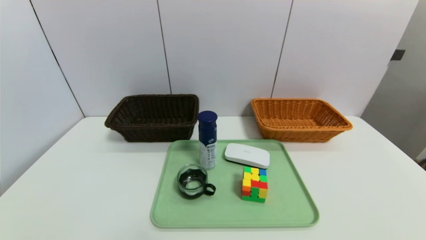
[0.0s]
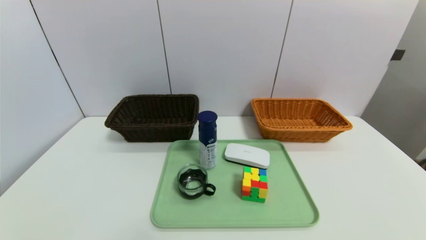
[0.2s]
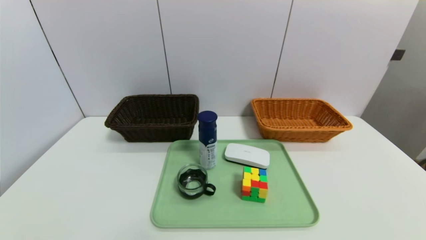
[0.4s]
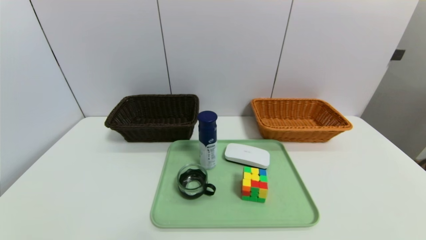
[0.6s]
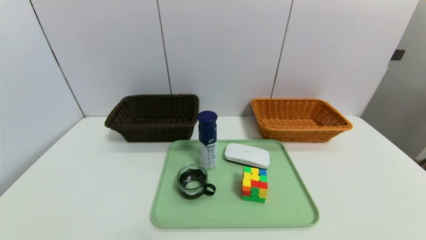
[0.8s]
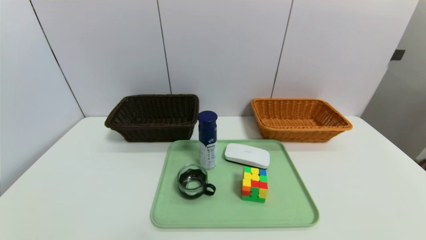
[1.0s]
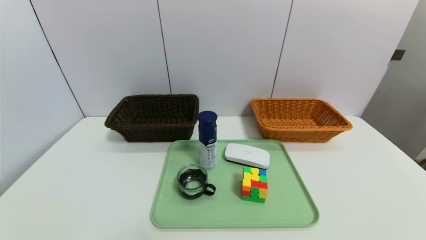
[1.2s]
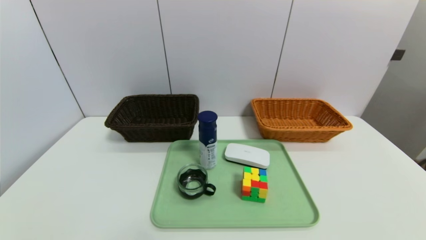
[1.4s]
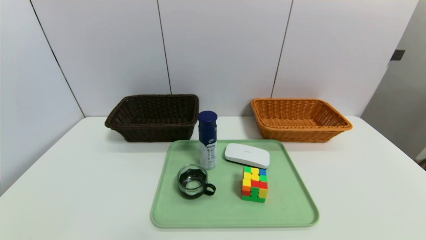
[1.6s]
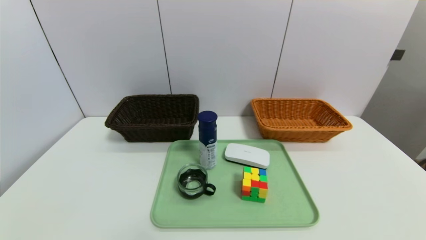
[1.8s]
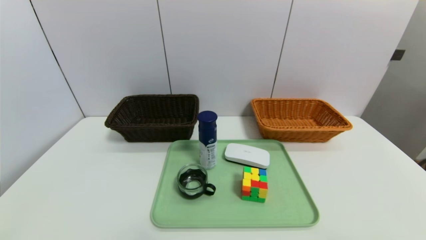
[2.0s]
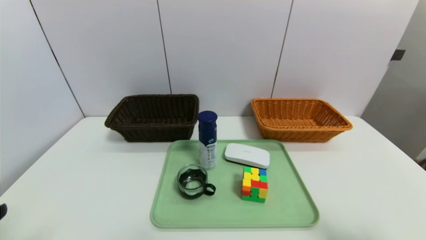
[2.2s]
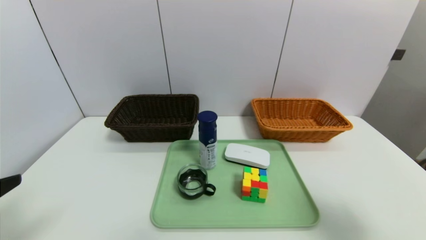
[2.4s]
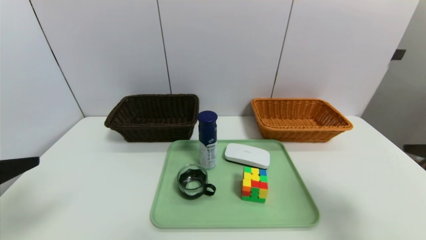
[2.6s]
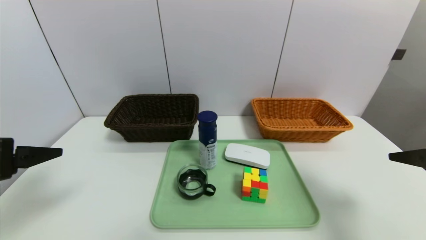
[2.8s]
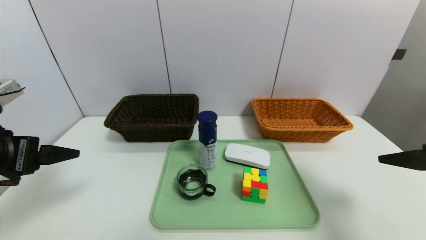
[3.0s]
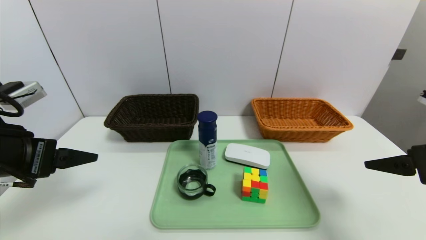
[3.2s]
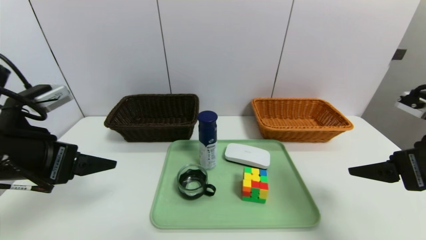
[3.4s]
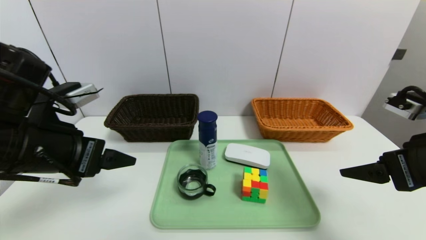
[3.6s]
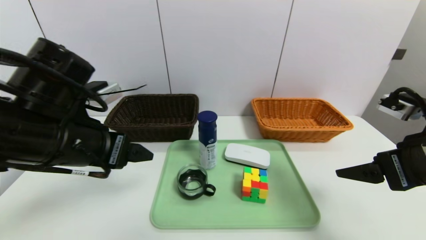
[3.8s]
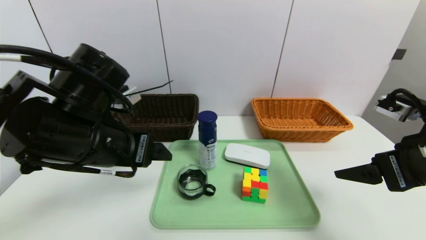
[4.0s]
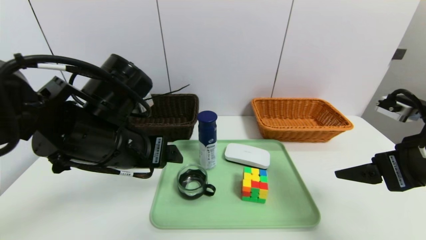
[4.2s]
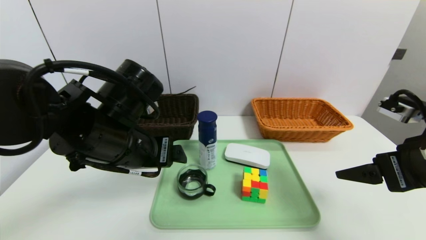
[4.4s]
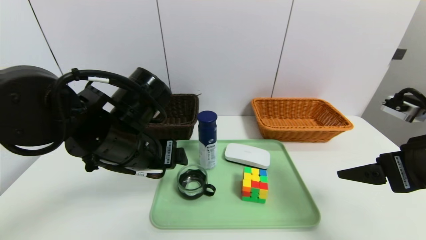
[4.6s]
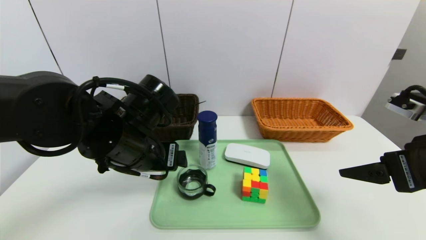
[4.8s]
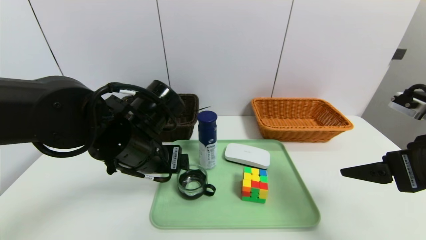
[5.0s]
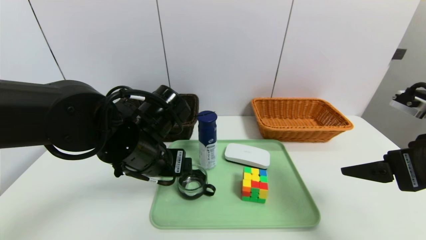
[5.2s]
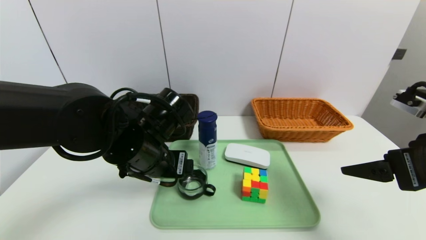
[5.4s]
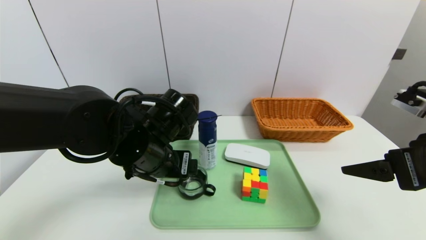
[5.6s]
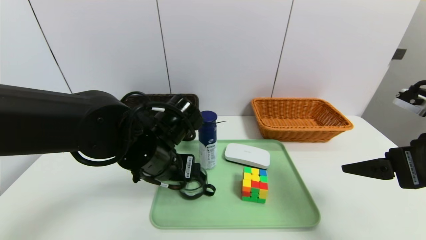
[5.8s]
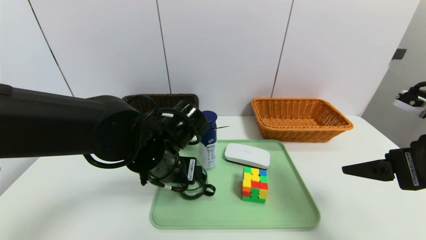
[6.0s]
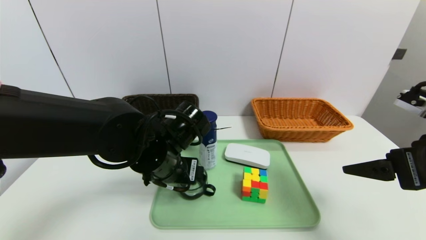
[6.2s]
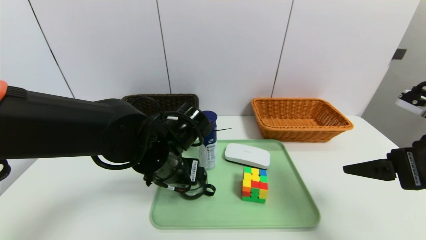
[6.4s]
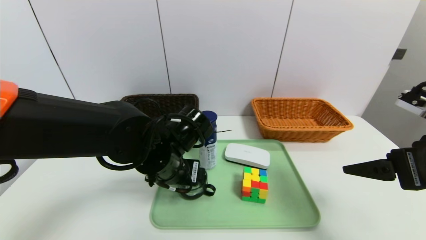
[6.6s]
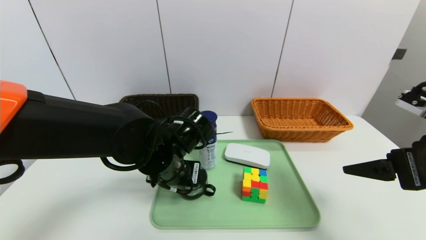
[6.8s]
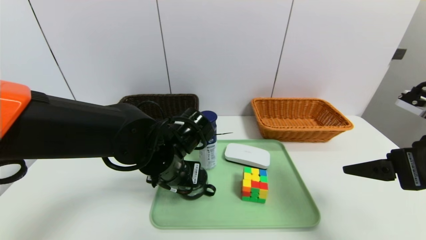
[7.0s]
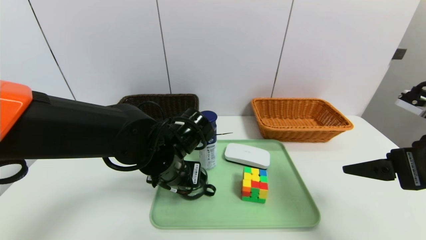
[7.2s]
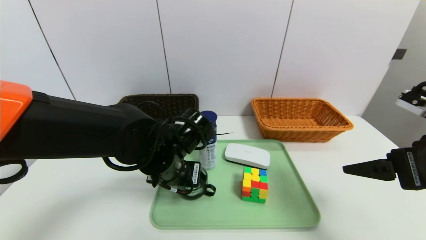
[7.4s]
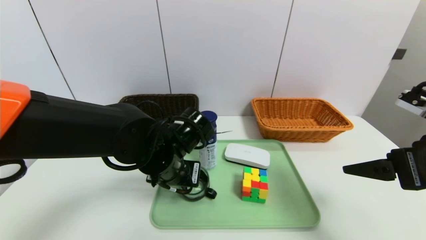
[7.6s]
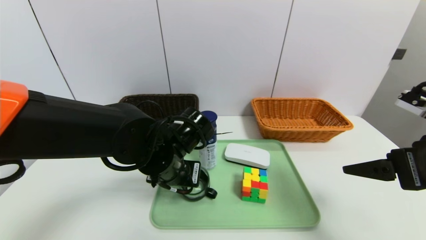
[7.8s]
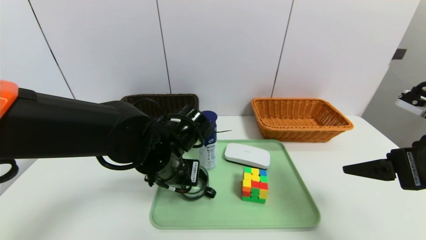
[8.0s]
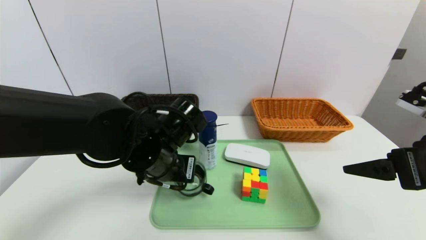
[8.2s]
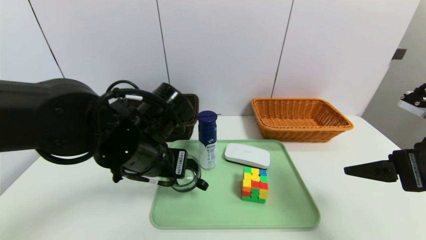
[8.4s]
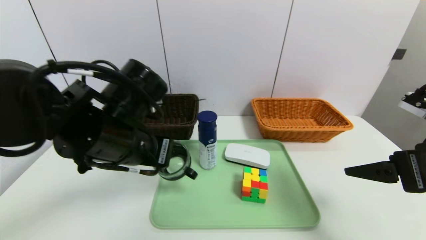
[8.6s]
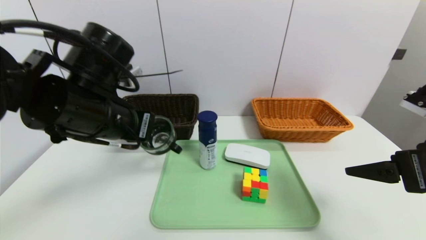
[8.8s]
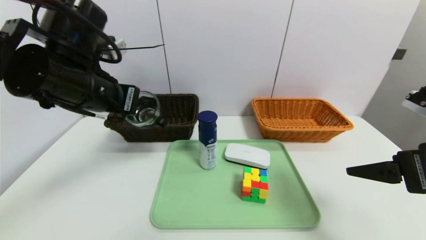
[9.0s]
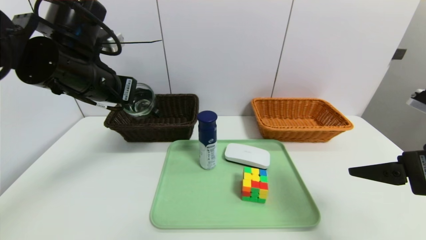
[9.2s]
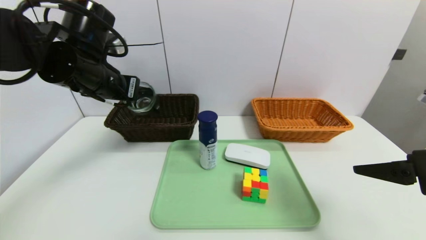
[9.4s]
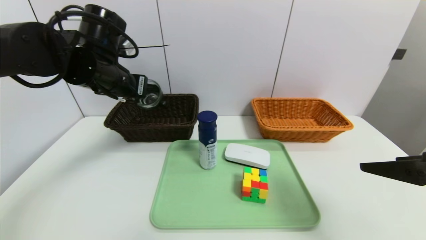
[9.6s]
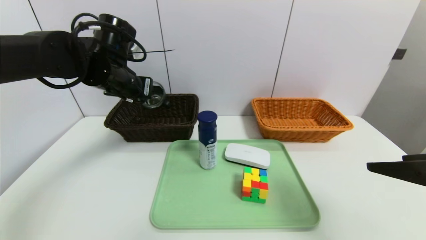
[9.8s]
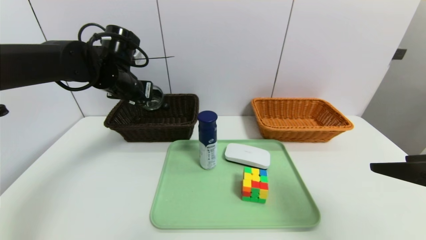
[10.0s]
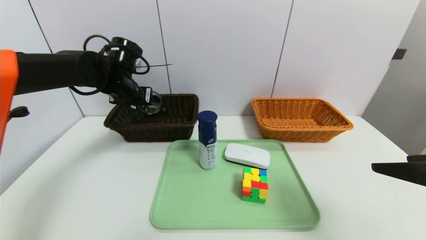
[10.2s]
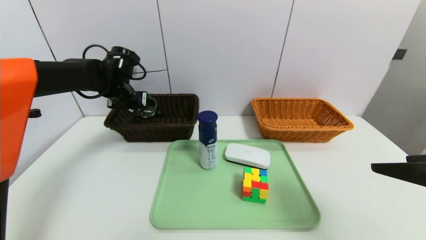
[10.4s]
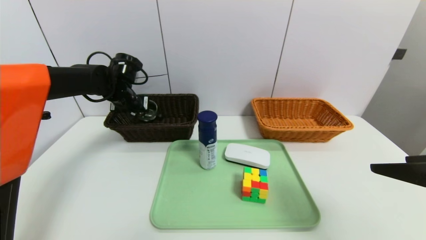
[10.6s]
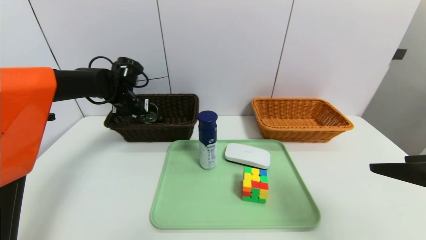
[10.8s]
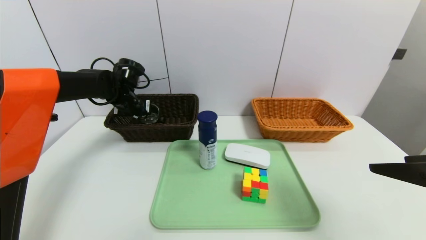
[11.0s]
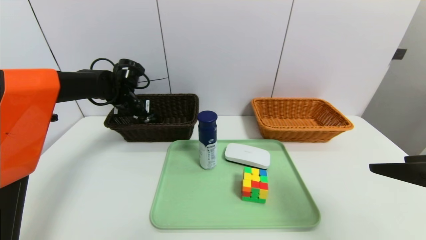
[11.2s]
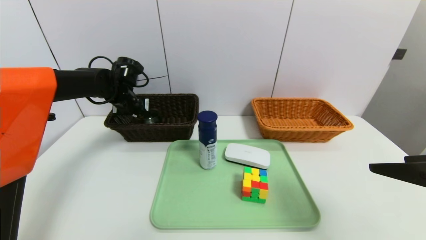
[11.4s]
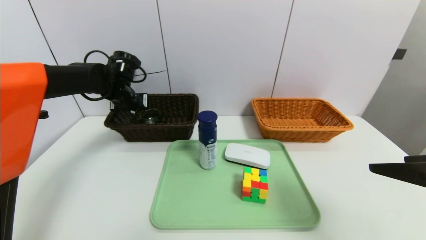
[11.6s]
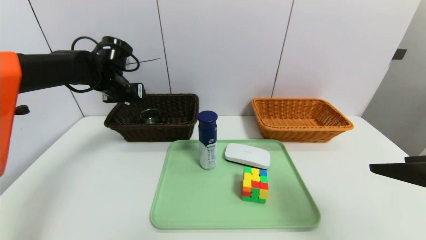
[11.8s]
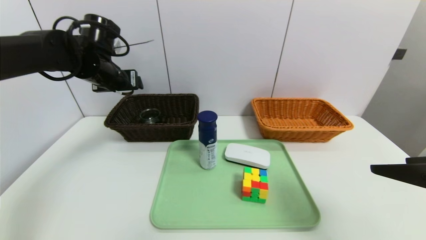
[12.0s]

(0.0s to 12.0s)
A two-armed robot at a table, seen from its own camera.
Task of the whole recording: place the food in the right basket with the right gripper, and place the non food items in the left basket with the left gripper.
Step, 0.0s - 11.6s: Grasp the tea cup and put it in the left basket.
1.6s - 3.0s: Both grippers move forward and upward, some 25 cm.
3.0s - 4.4s: The left gripper shifts roughly 15 cm to the right.
4.4s - 6.0s: The left gripper travels downward by roughly 5 cm.
6.0s - 7.6s: The left gripper closes its fingers.
7.6s - 9.0s: The left gripper is displaced upward and to the left by roughly 20 cm.
9.0s - 10.4s: The left gripper moves forward and downward, about 20 cm.
10.4s - 12.0s: The left gripper goes roughly 5 cm upward, and opens its fingers.

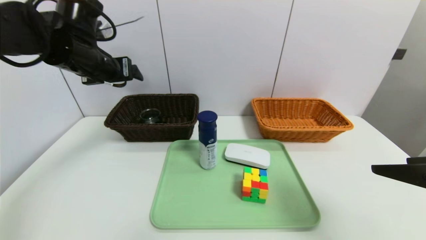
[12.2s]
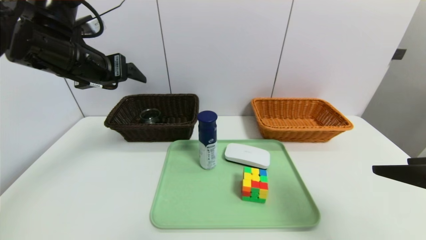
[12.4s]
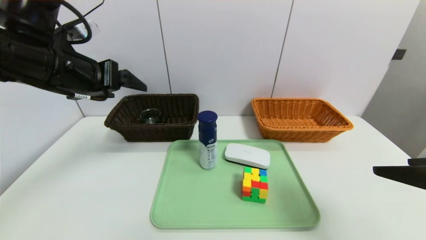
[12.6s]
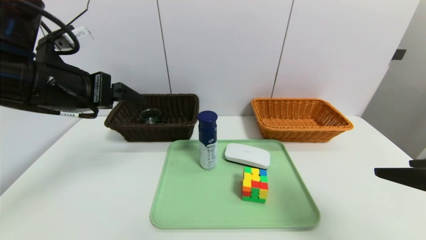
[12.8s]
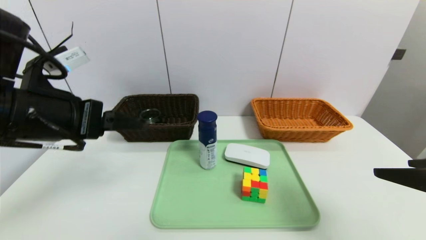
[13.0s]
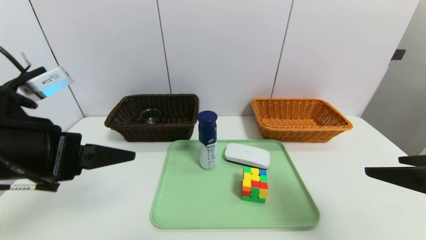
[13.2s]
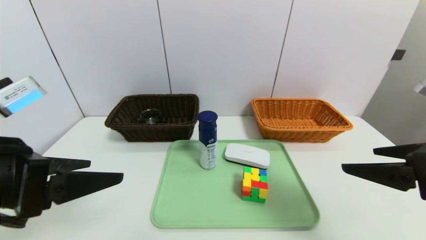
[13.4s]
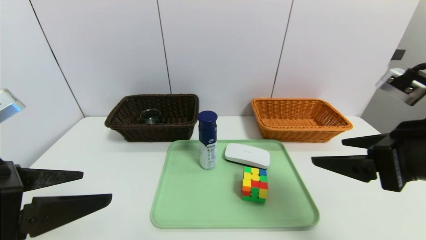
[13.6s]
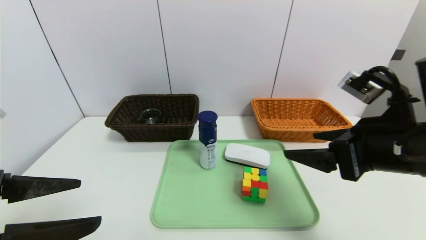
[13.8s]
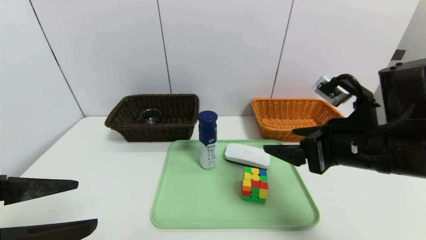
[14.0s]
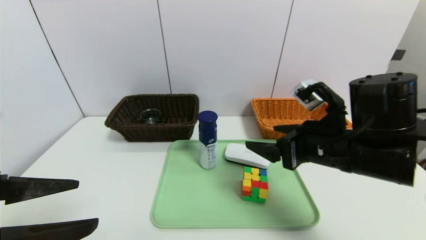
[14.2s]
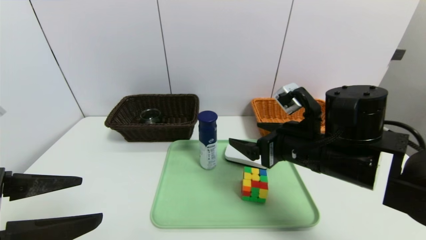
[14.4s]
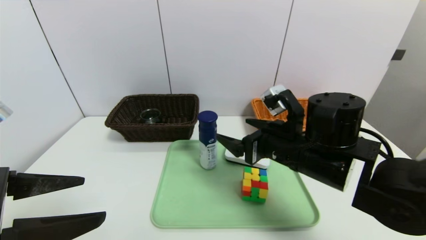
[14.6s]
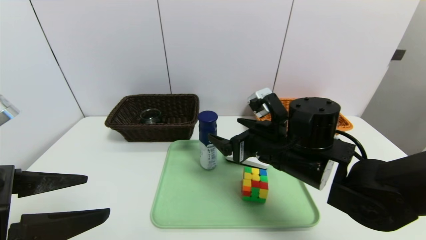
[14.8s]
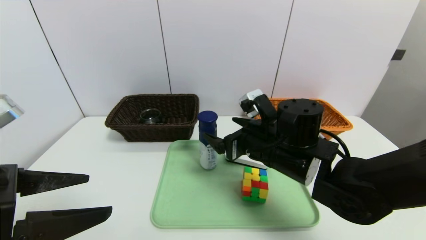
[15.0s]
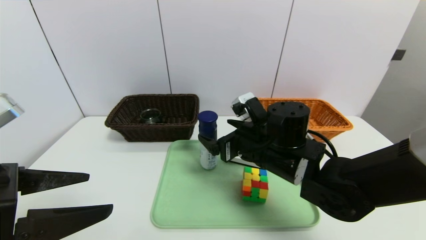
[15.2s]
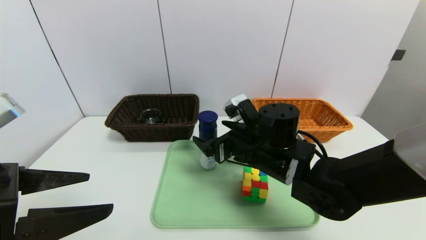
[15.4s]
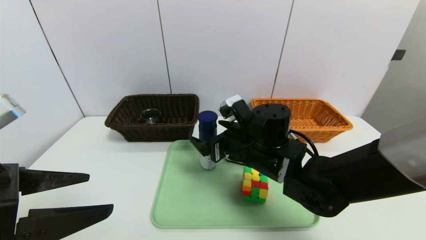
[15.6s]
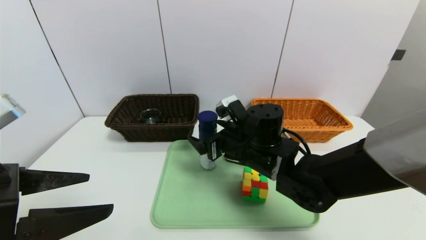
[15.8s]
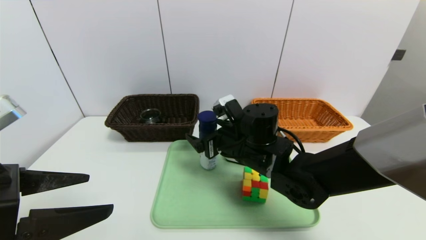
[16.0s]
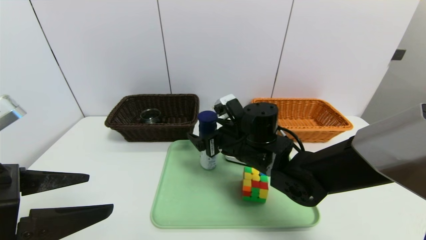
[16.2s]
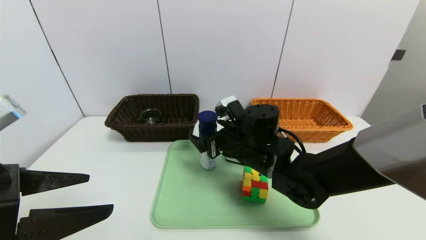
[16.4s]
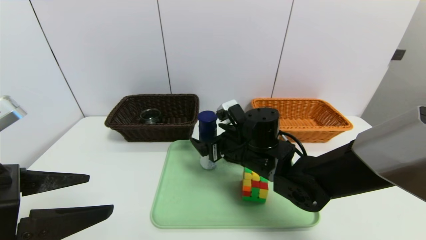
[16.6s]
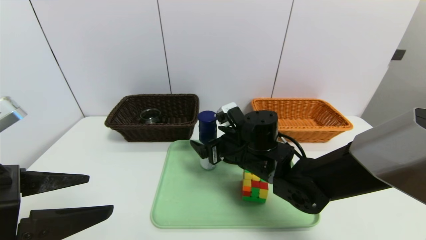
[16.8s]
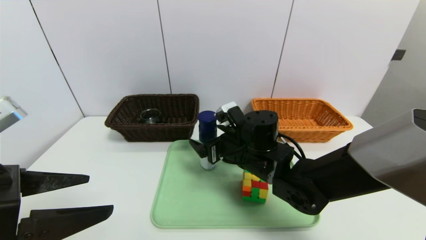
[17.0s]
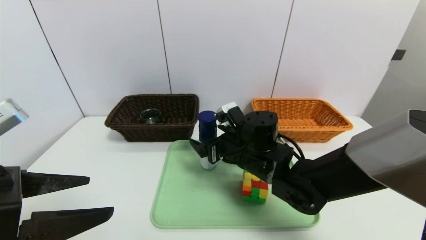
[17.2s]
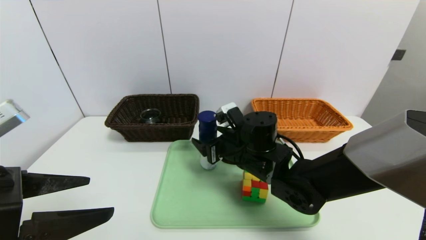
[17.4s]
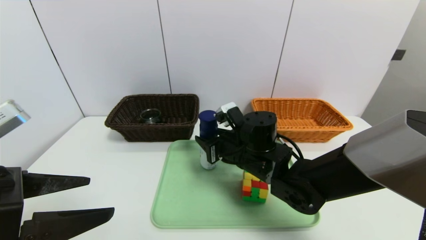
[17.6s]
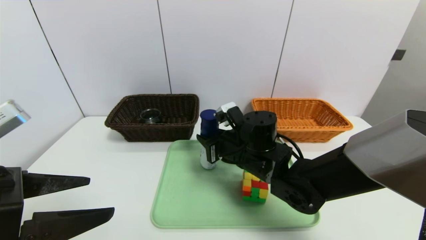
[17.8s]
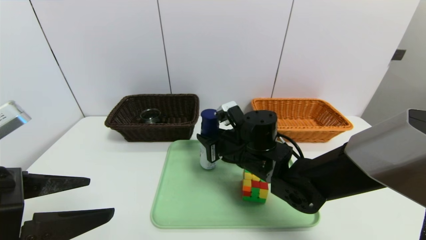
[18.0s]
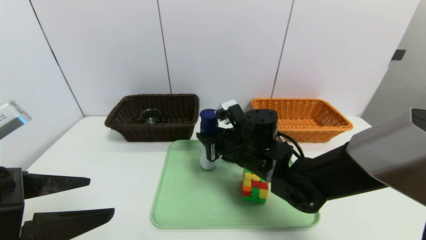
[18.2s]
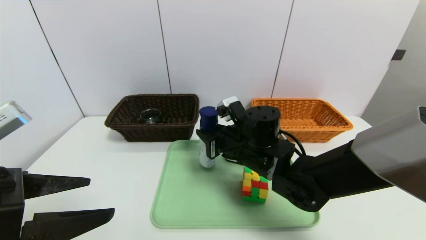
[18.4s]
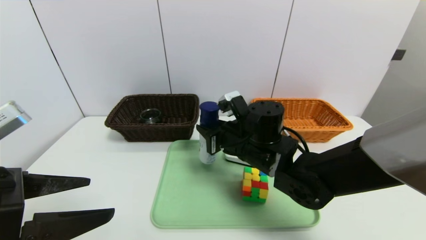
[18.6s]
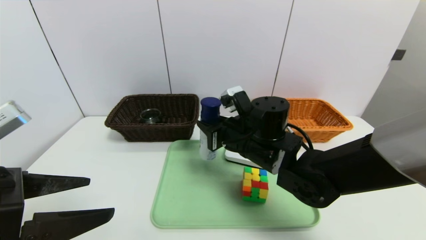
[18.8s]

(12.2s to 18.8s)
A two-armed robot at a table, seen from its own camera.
Task of the whole recording: place the food in the right basket with the right gripper, and place the non food items in the left basket with the left gripper.
12.2s - 13.8s: The right gripper shifts about 10 cm to the left and forward, while the left gripper travels backward by about 25 cm.
13.8s - 15.4s: The right gripper heads to the left, downward and forward, covering approximately 20 cm.
15.4s - 17.2s: The grippers make only small movements.
17.2s - 18.8s: The right gripper closes its fingers.
